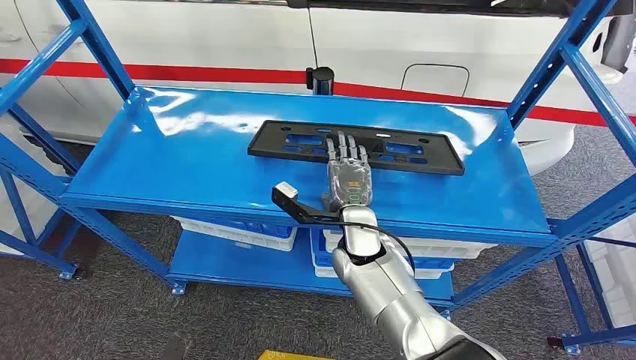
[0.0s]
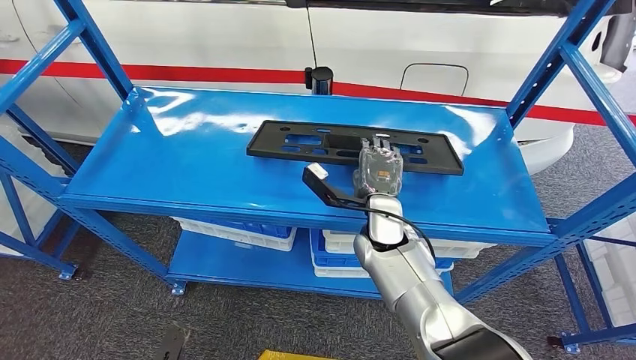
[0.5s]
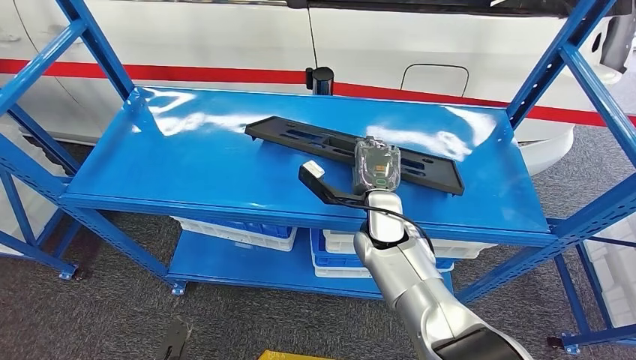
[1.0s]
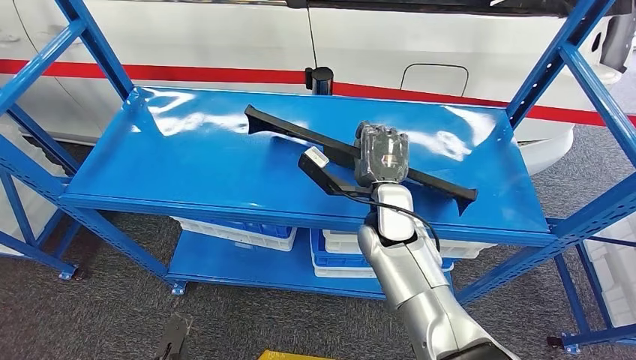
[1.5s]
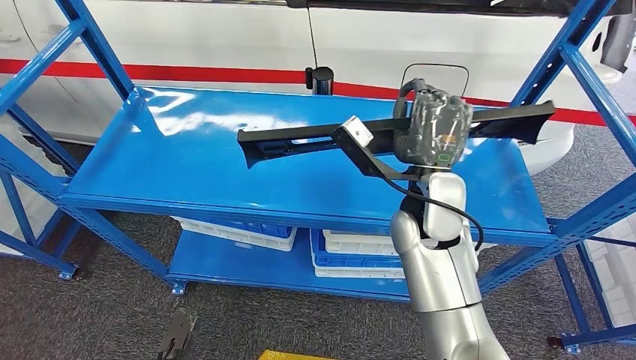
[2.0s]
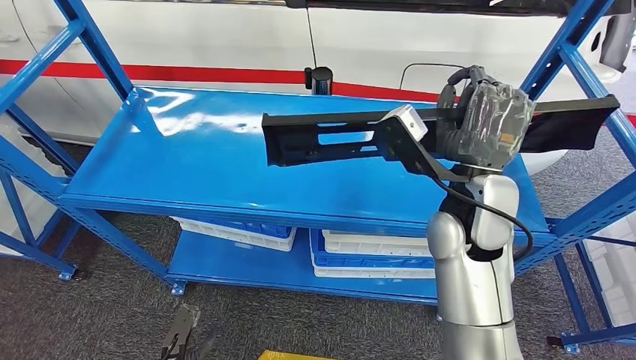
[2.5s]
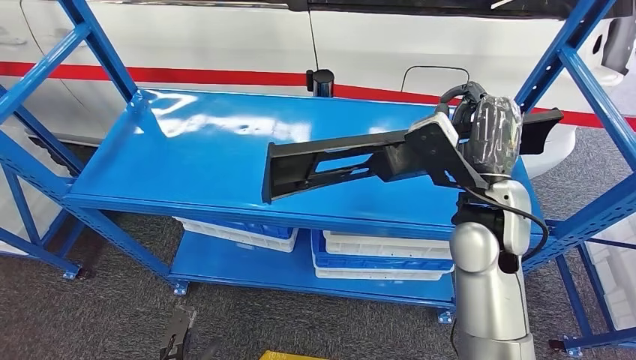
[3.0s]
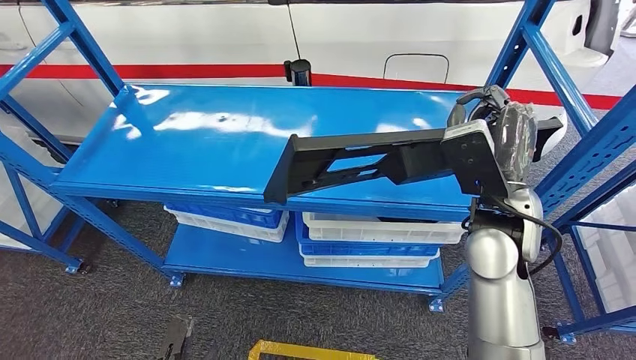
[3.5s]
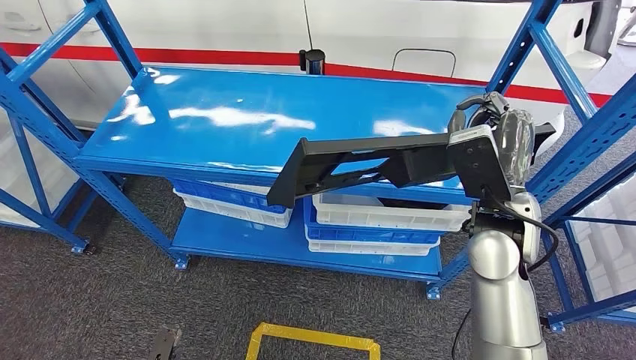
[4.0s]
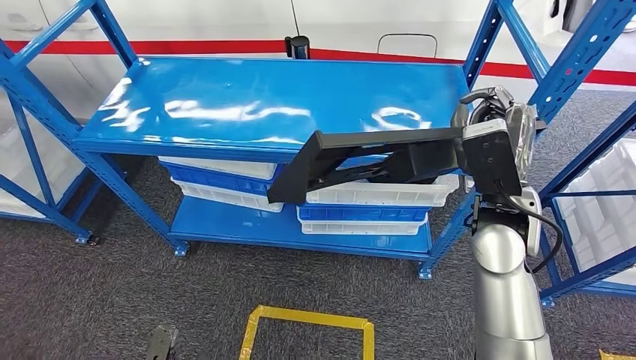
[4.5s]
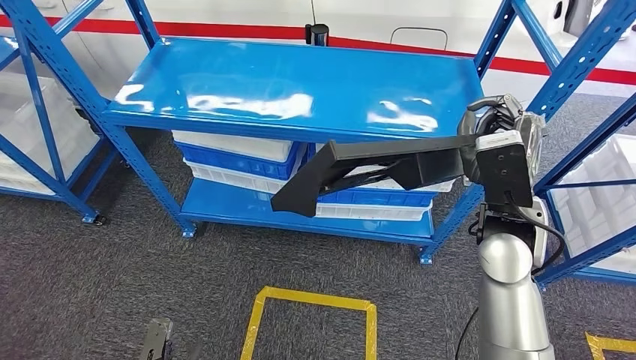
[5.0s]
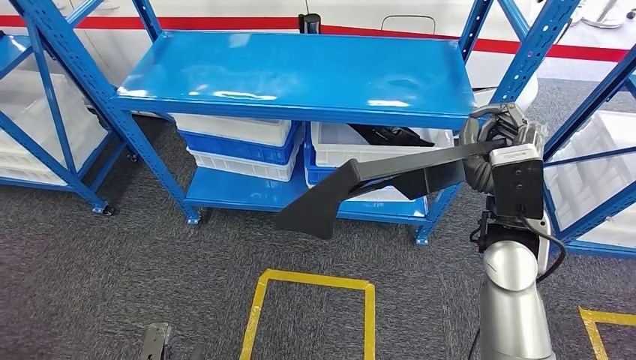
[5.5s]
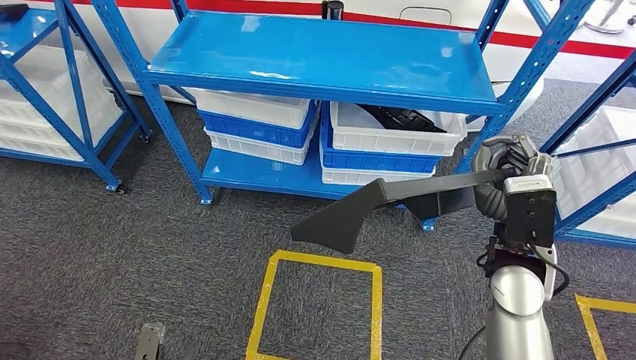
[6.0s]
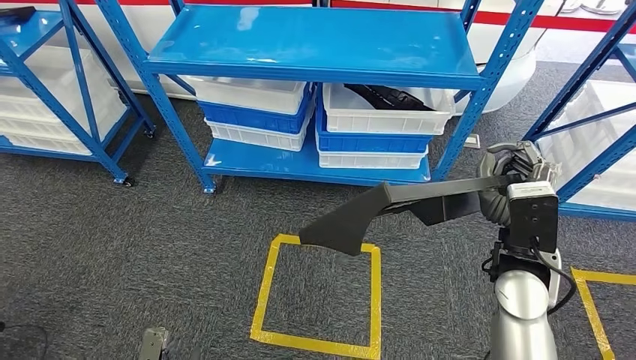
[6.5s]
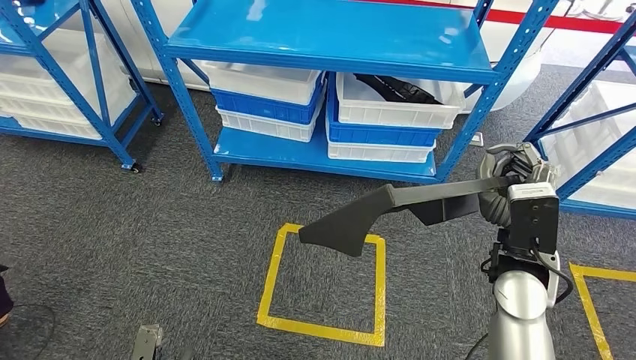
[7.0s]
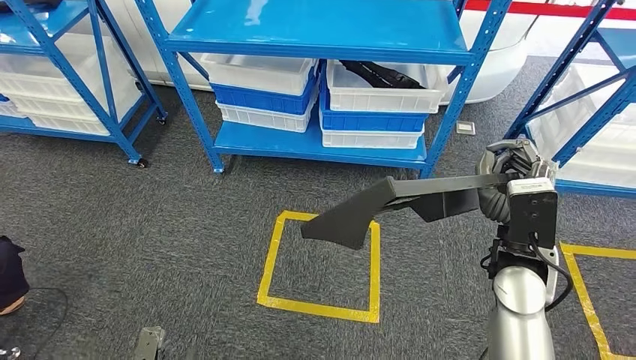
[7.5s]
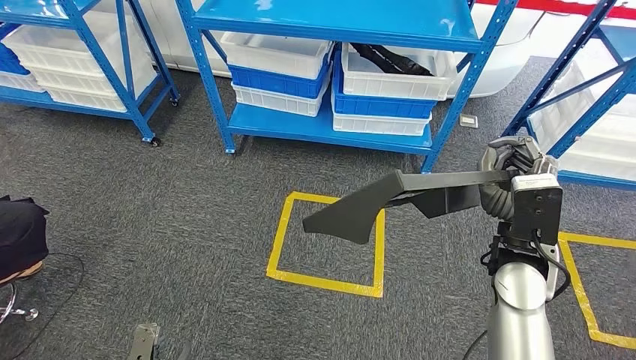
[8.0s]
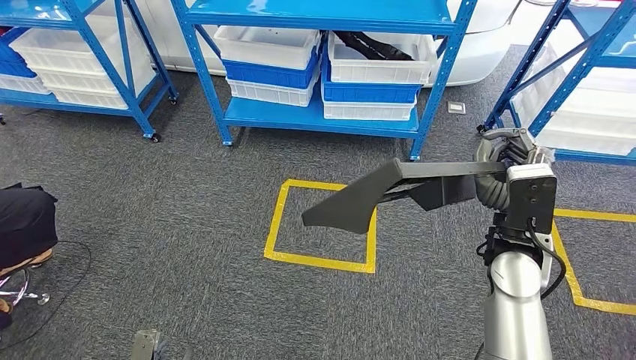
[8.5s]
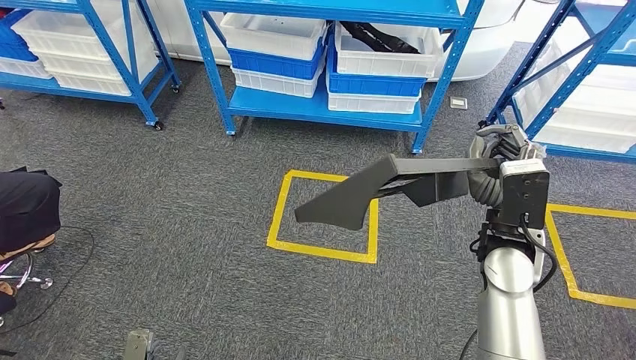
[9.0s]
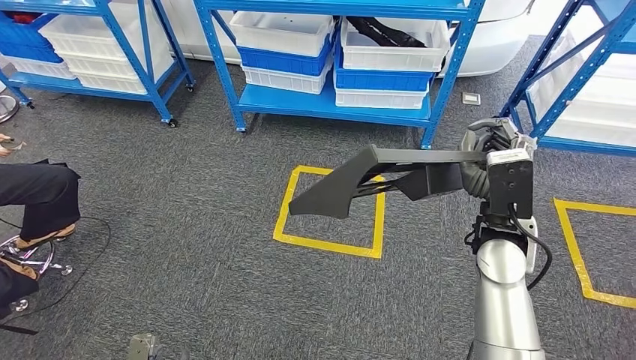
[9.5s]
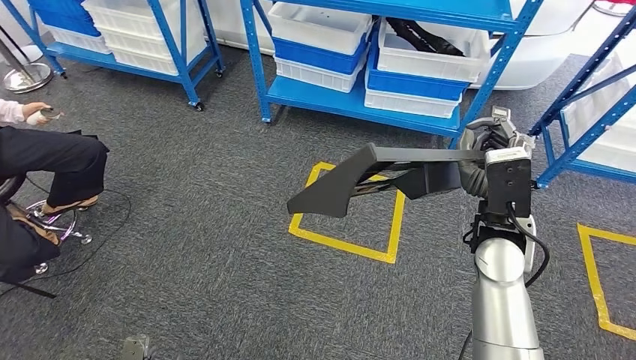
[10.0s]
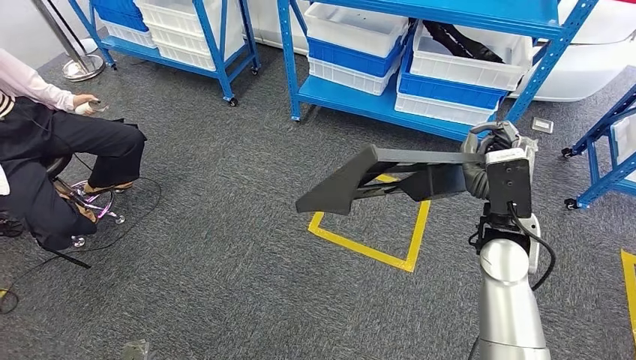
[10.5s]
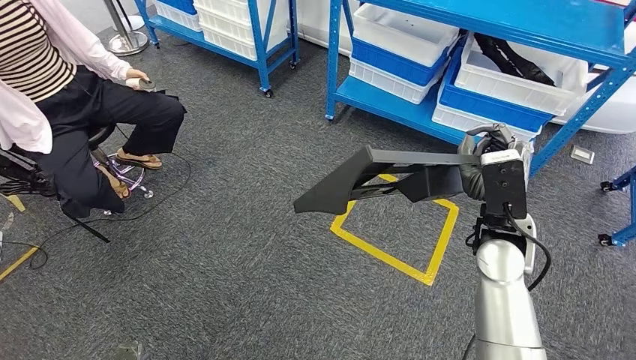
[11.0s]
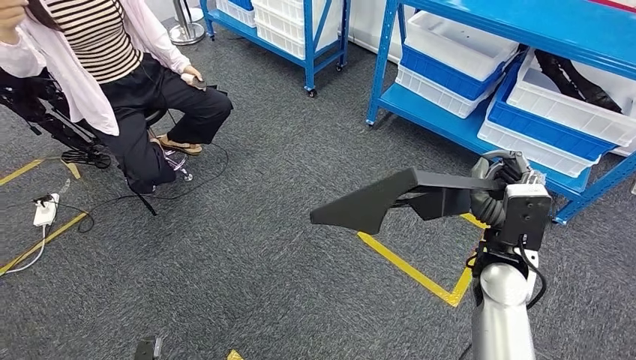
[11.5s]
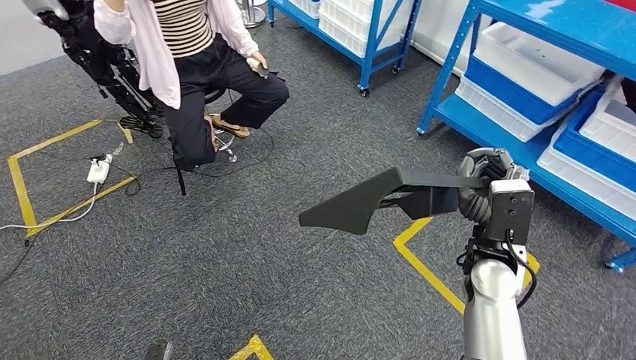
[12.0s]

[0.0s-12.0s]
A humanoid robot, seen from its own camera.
Step, 0.0s to 6.0s: Pick up the large material from the shelf.

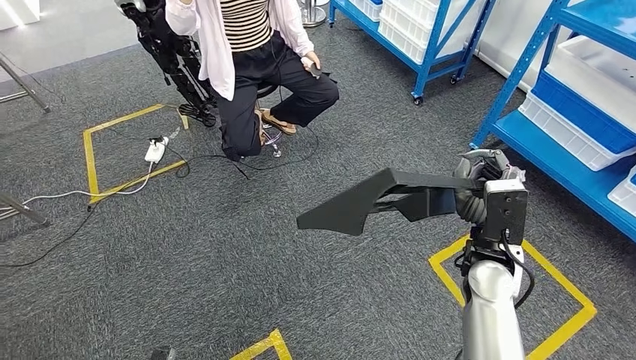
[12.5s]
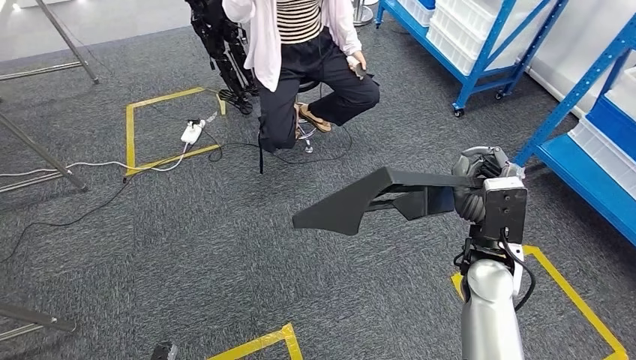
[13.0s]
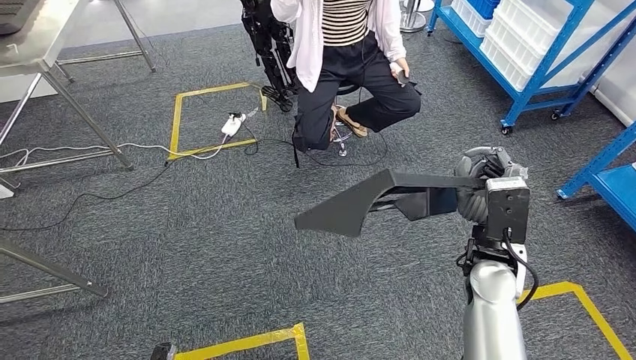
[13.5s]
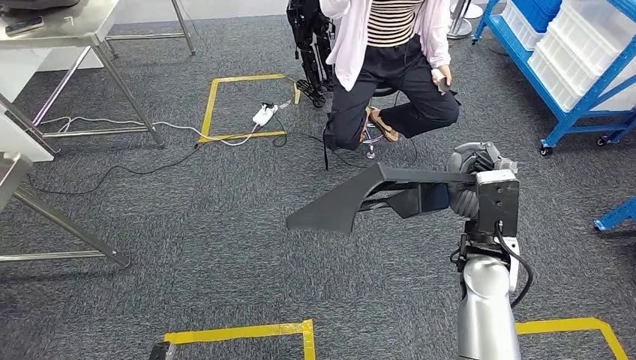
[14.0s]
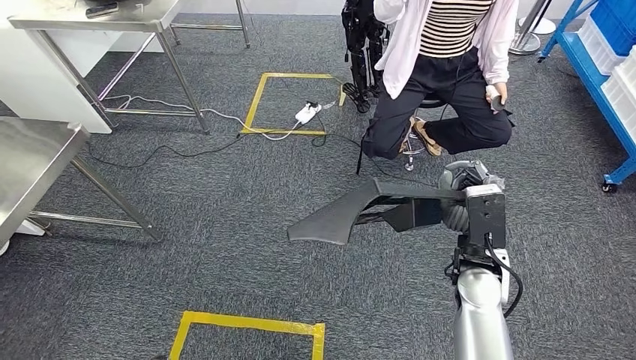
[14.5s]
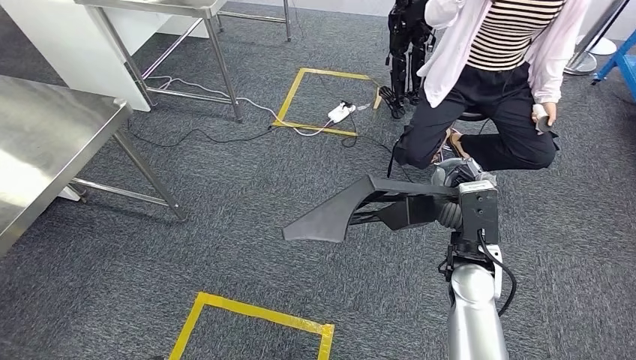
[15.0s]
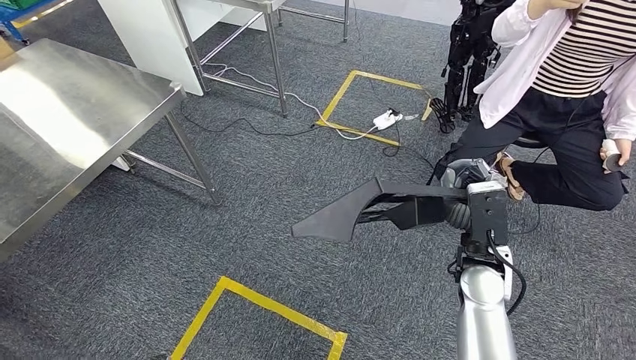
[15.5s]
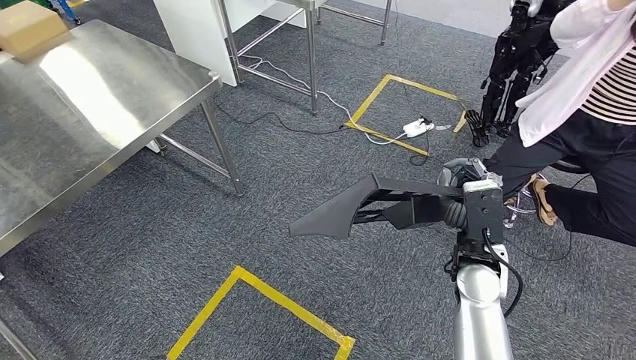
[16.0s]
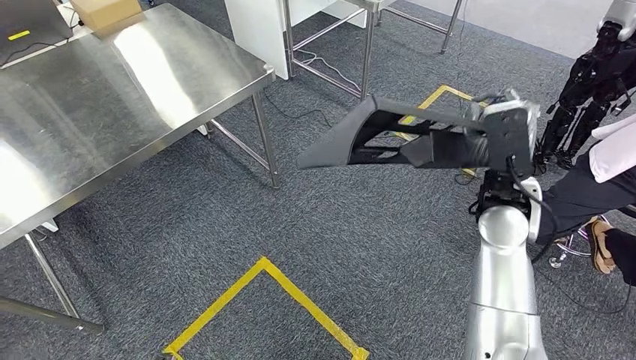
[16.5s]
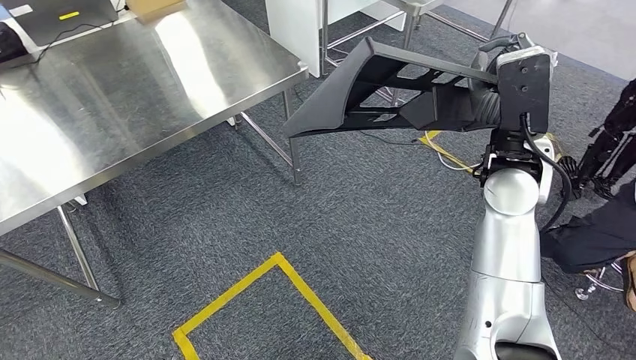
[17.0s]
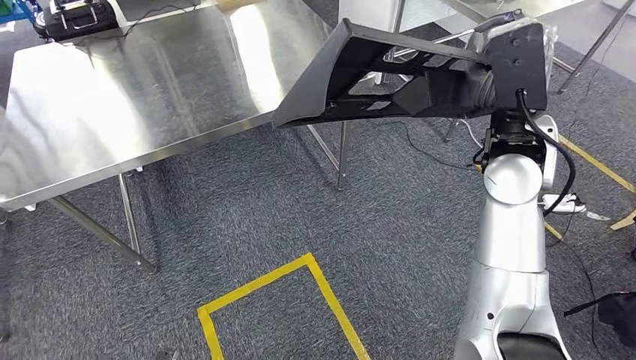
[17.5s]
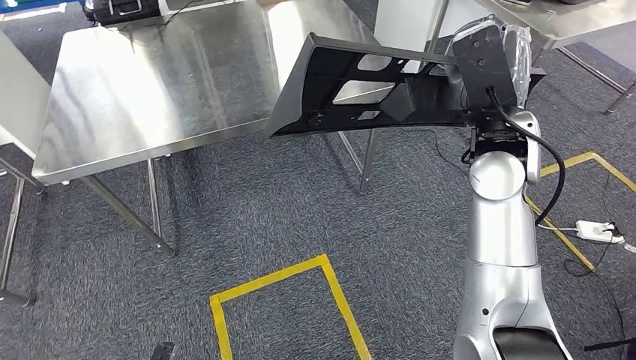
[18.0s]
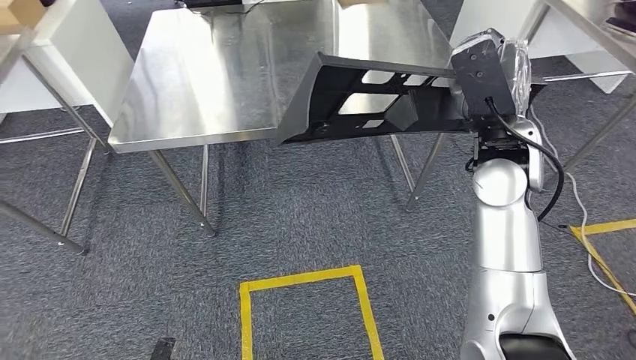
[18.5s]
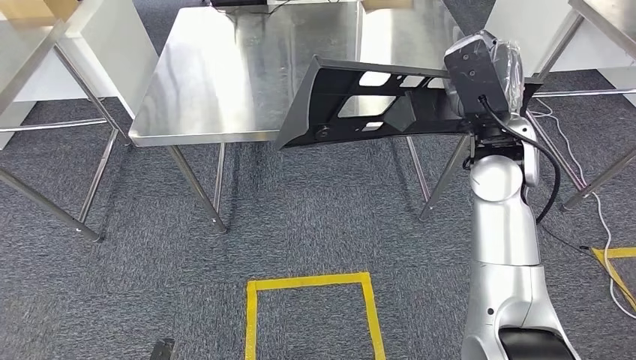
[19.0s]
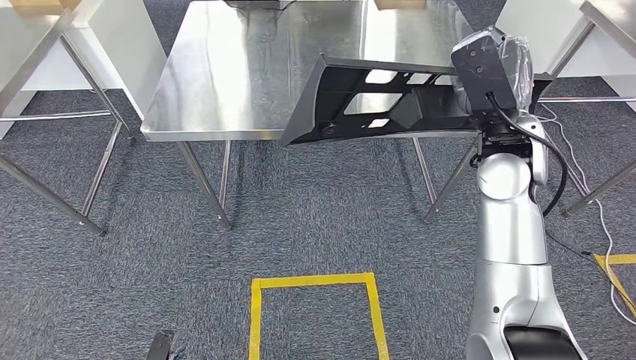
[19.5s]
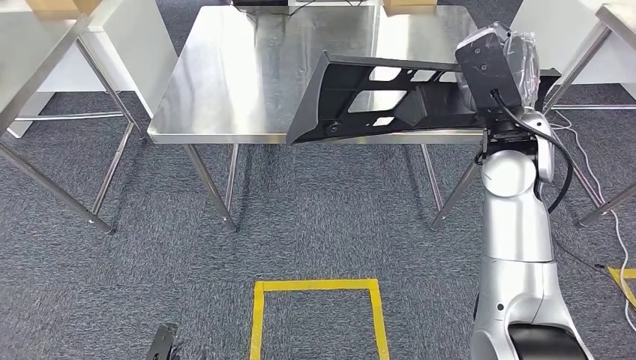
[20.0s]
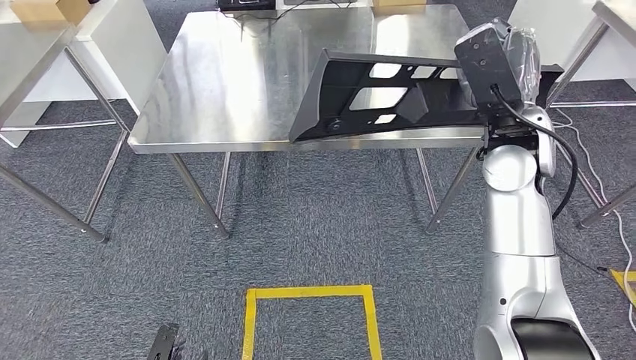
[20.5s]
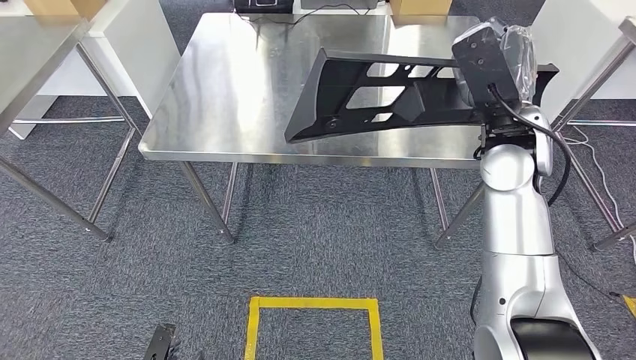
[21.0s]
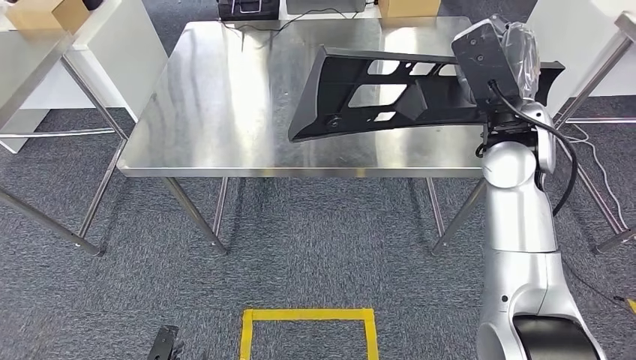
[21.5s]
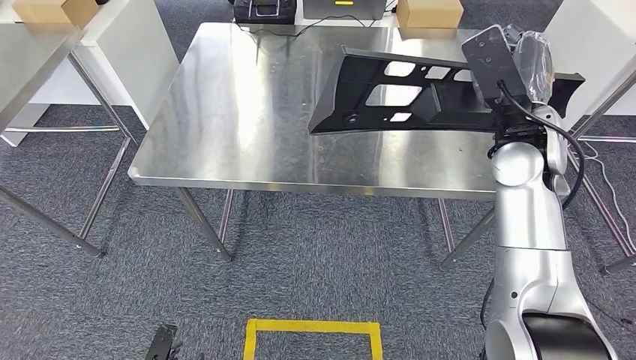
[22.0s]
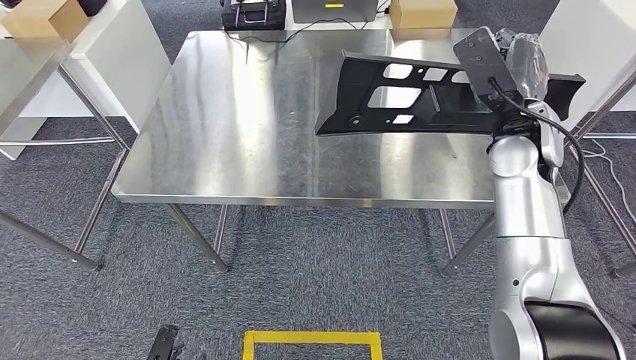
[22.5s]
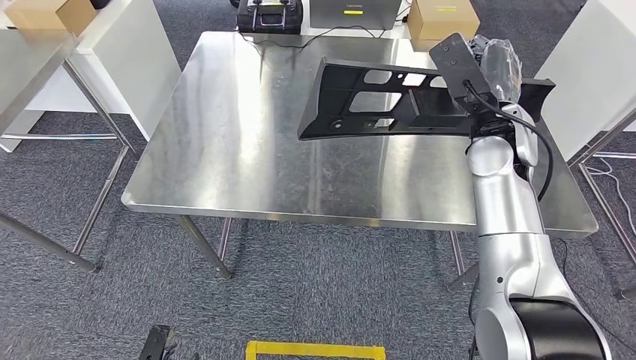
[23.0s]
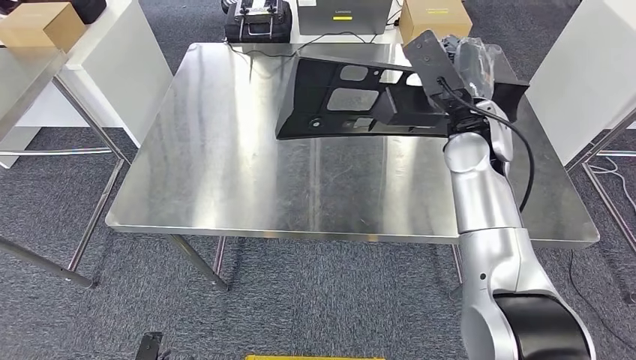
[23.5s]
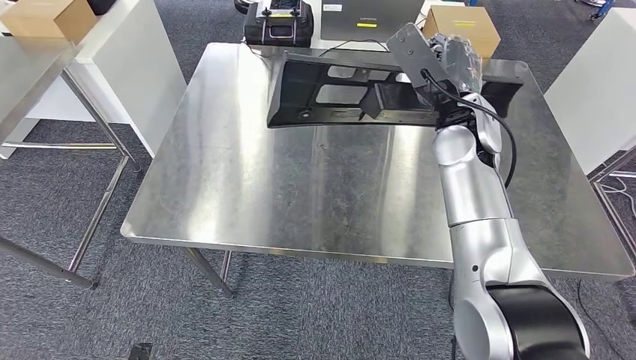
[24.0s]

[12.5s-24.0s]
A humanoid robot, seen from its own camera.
Step, 12.5s to 17.5s: Move the large material to the workbench.
